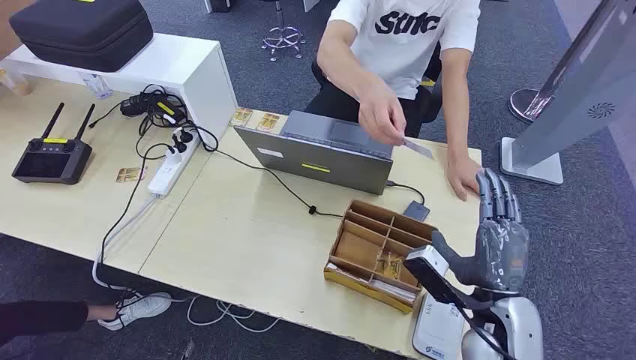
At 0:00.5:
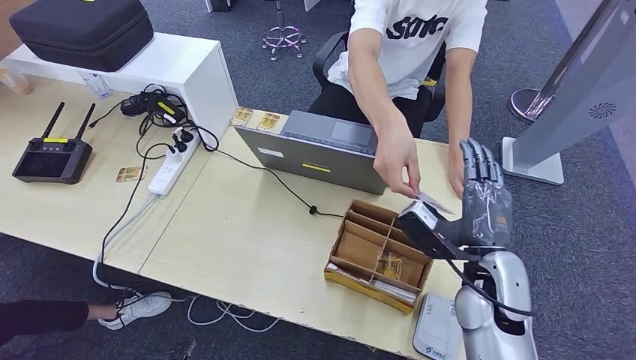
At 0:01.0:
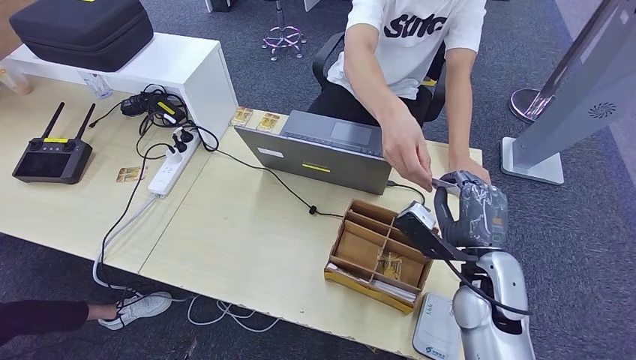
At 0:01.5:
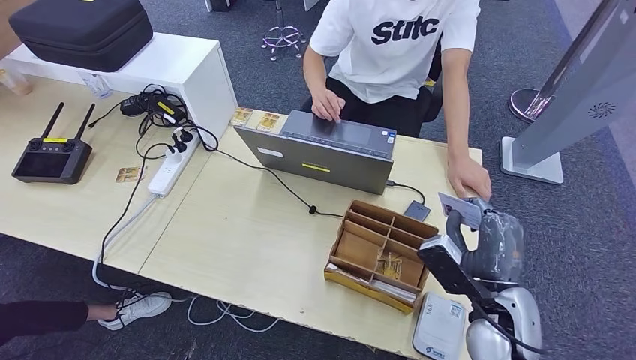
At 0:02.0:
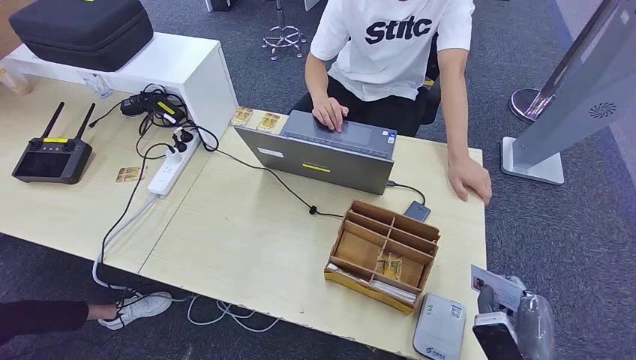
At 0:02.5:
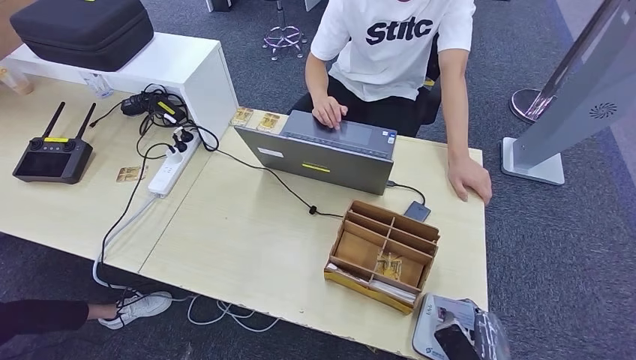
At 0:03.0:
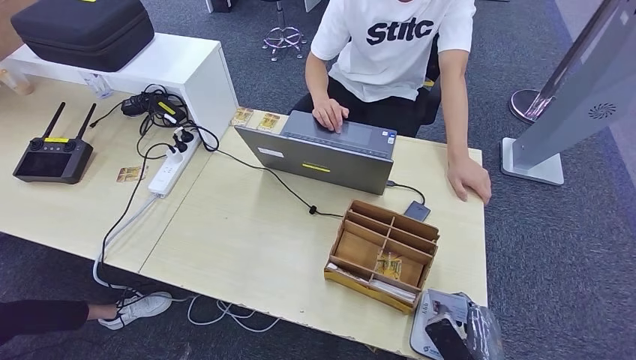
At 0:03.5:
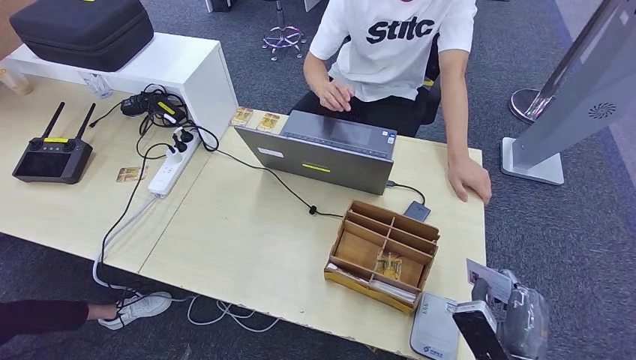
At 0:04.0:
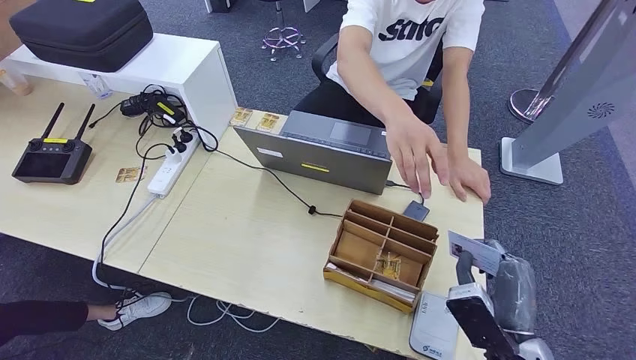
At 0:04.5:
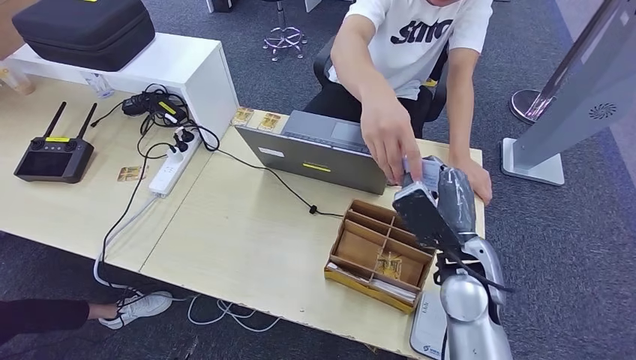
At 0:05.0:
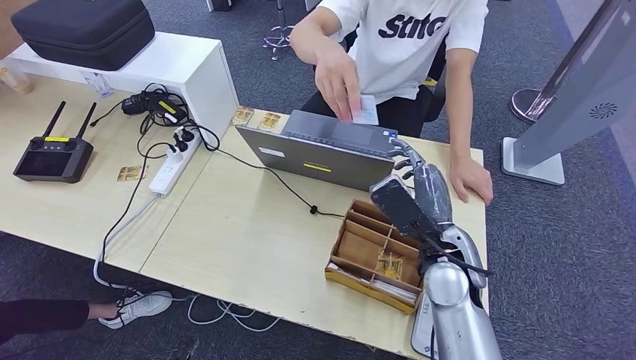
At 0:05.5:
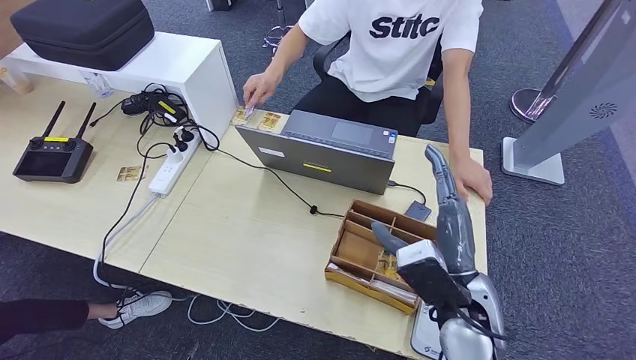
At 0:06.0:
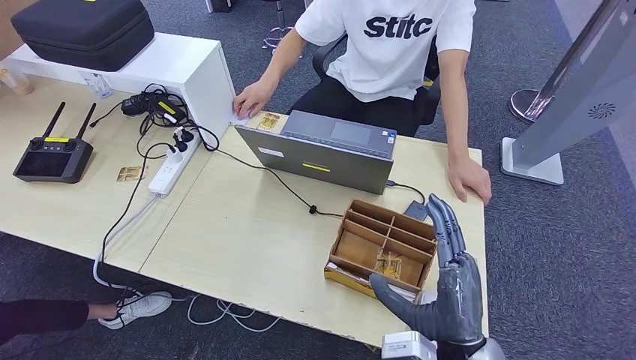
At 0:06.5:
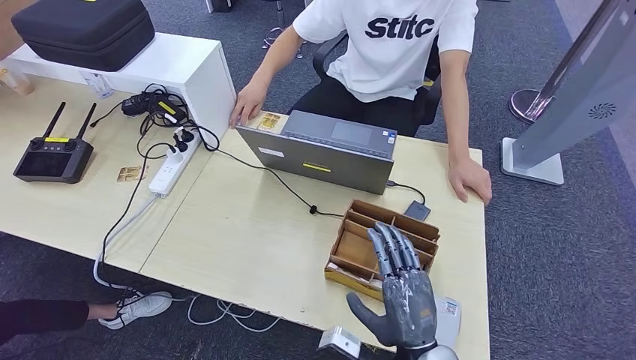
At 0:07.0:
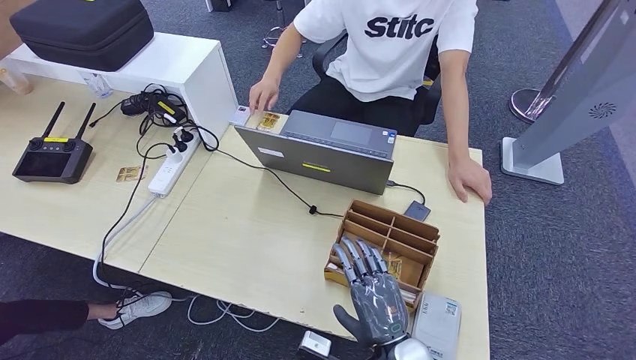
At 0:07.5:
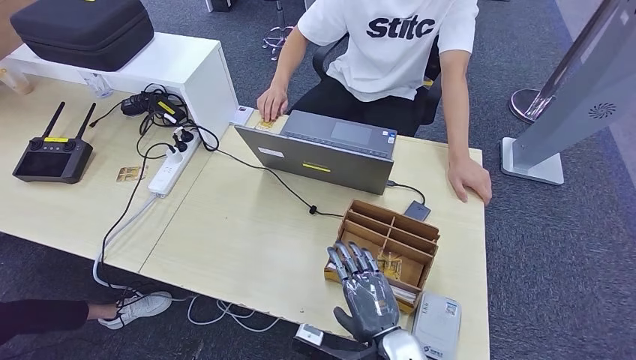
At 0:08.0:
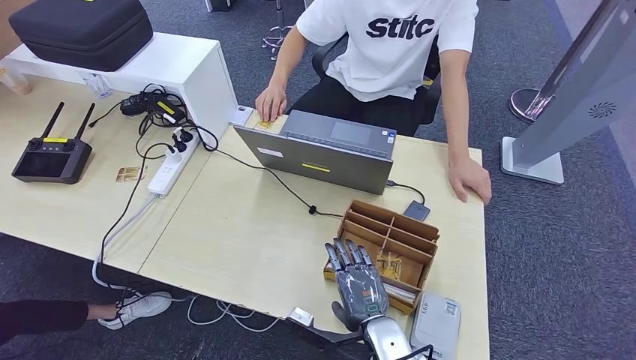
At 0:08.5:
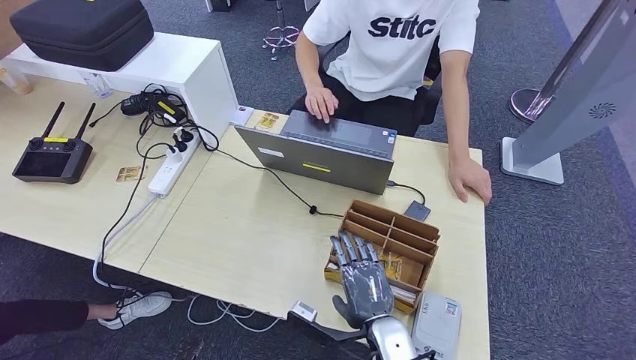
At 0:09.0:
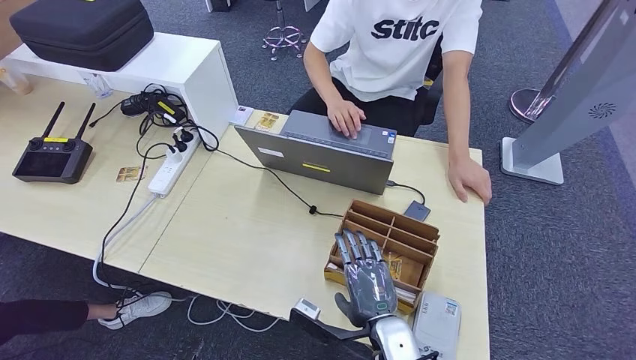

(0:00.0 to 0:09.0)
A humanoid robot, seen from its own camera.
Step, 0:00.0 - 0:01.5: Take the ID card from the person's hand.
Step, 0:02.0 - 0:03.5: Place the ID card on the card reader.
Step, 0:04.0 - 0:05.5: Hand the ID card to the person.
0:02.0 - 0:04.5: The right hand goes some 20 cm forward, to the left and upward.
0:04.5 - 0:07.0: The right hand shifts roughly 20 cm backward, downward and to the left.
0:07.0 - 0:09.0: The hands make only small movements.

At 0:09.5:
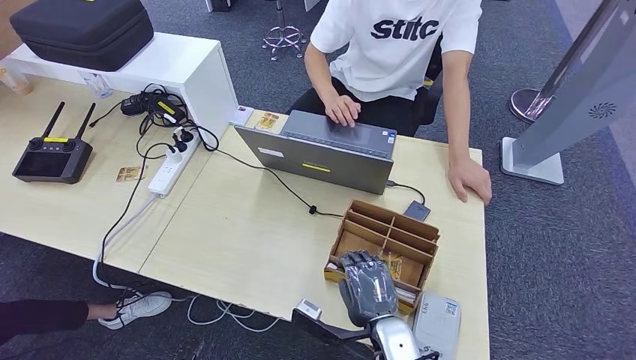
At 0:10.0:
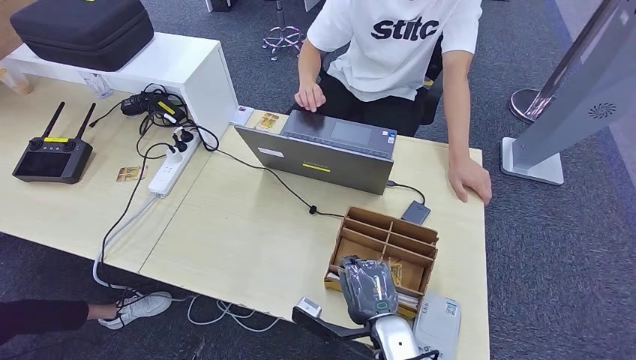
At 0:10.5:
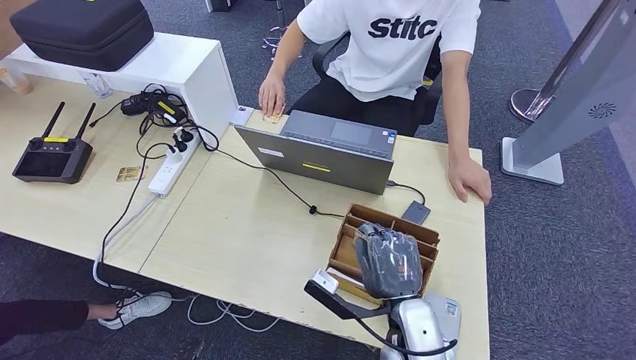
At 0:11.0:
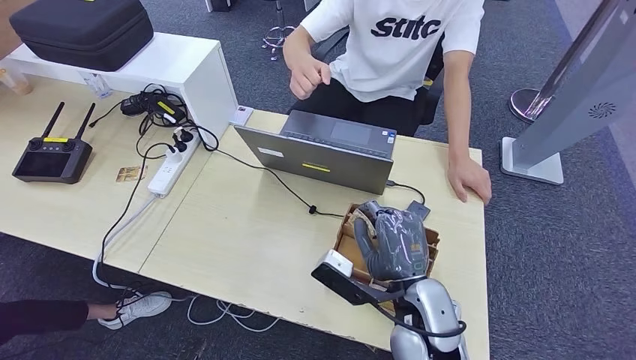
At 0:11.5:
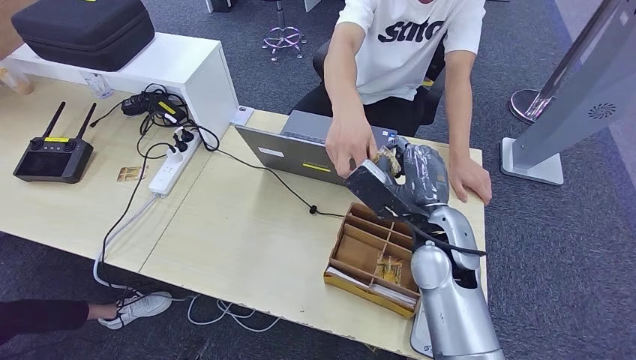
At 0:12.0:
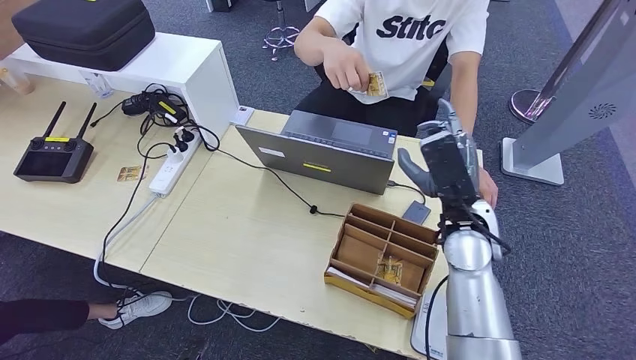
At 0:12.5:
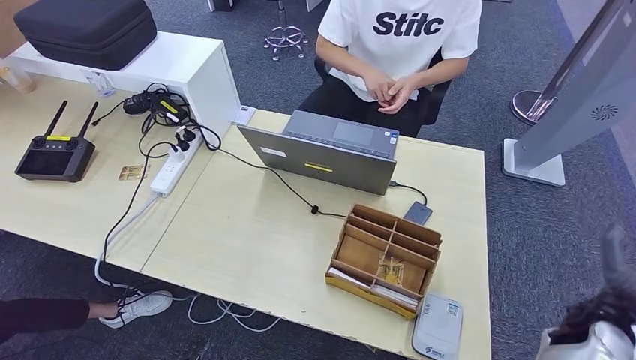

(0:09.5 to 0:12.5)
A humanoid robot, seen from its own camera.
Step, 0:09.5 - 0:11.0: Pick up the room key from the key card box.
Step, 0:11.5 - 0:12.5: Hand the room key to the person.
0:09.5 - 0:11.0: The right hand shifts about 10 cm upward.
0:11.0 - 0:12.5: The right hand moves to the right, about 25 cm.
